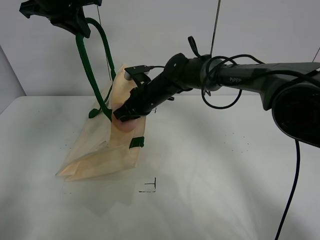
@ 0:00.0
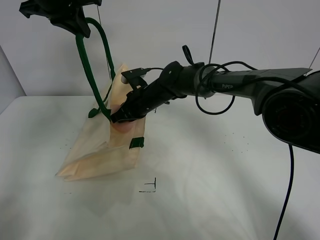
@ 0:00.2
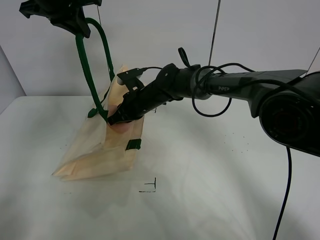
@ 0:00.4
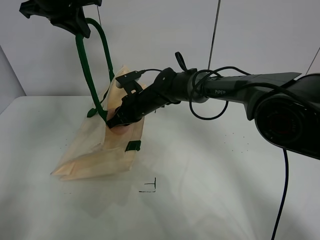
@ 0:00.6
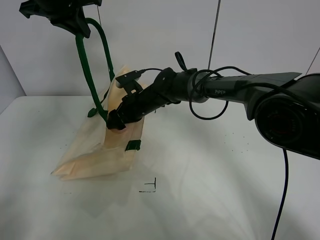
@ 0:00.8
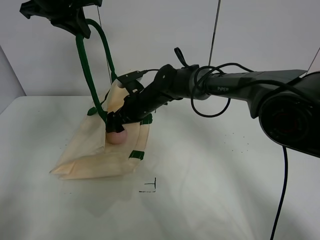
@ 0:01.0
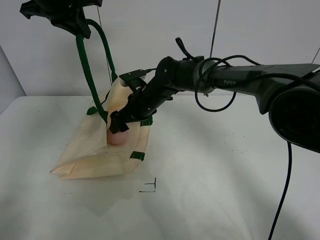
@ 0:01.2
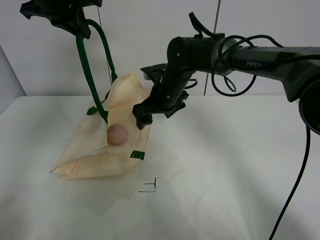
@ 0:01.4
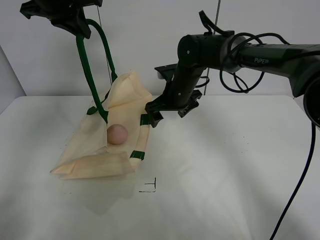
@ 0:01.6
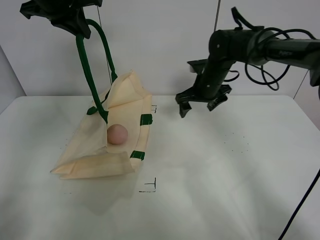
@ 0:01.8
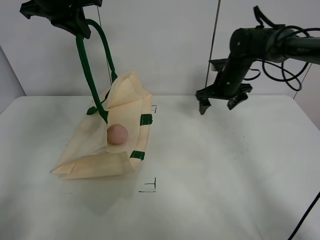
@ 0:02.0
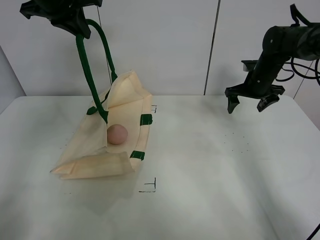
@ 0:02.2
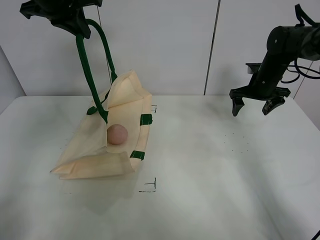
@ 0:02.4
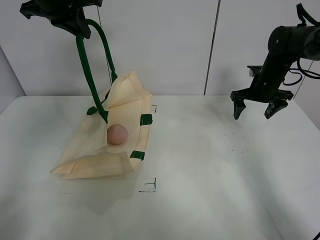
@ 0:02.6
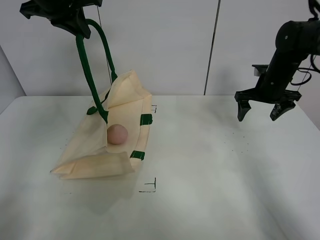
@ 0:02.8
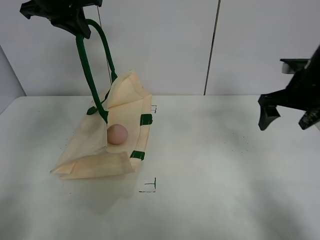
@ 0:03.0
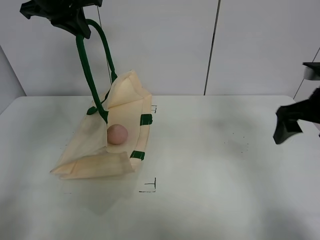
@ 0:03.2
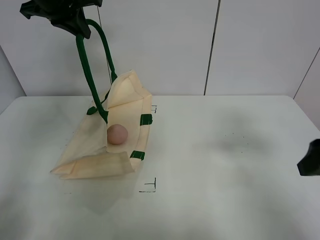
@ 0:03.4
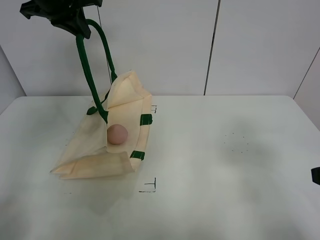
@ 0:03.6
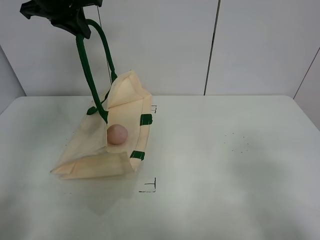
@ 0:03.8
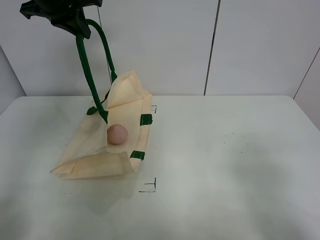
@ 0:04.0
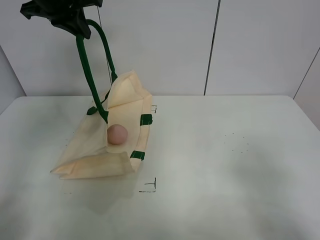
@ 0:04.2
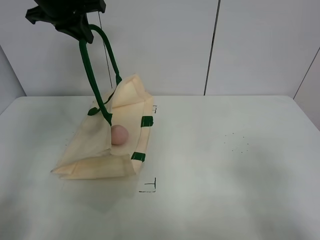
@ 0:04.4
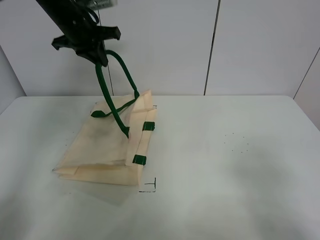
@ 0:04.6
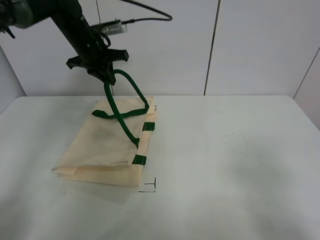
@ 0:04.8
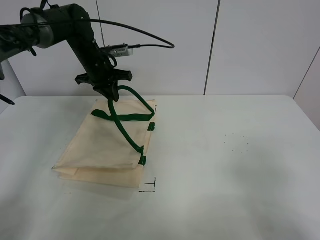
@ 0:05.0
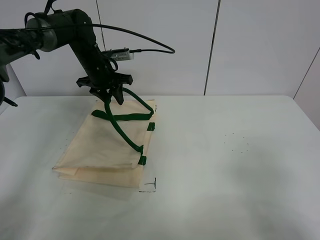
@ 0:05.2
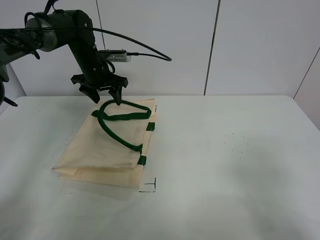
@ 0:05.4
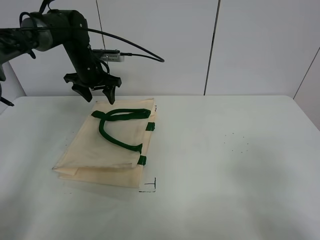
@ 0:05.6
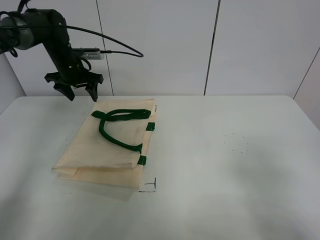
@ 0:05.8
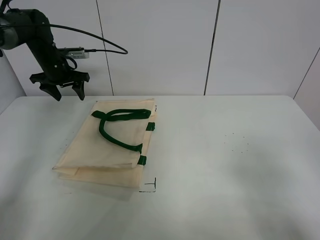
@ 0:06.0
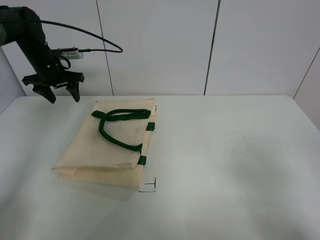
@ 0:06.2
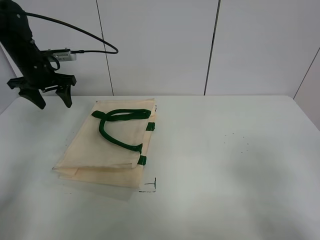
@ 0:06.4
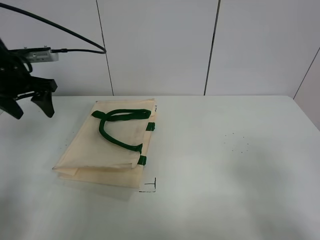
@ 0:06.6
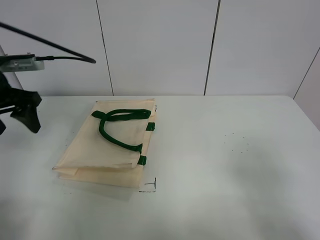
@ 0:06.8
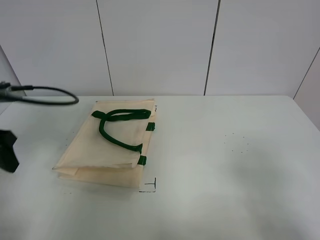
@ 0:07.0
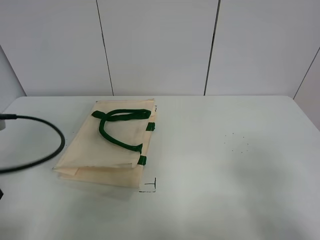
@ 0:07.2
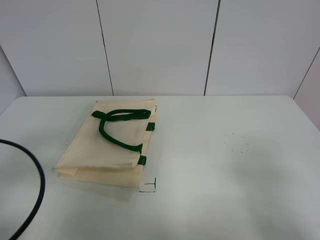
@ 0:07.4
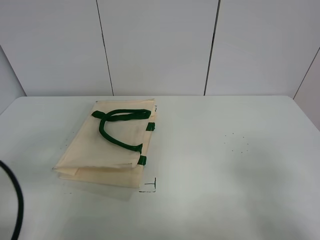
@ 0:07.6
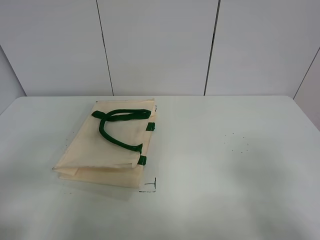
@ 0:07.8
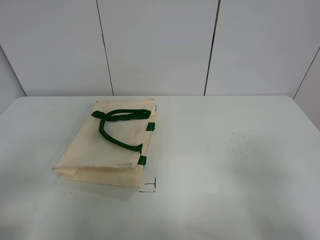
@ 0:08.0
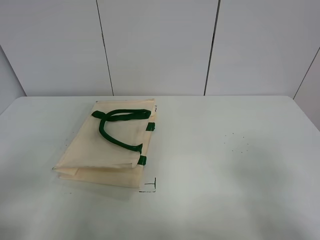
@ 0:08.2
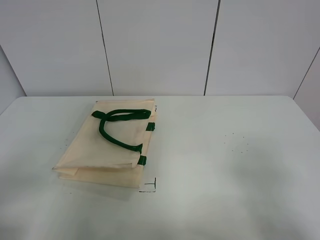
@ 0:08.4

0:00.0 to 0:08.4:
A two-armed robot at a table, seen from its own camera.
Task of the whole recording: open the white linen bag and put the peach in the bag.
Step, 0:01.2 to 0:05.4: Put down the handbag with left gripper.
0:00.0 to 0:01.4: The right gripper opens its fingers.
0:01.4 to 0:02.8: The right gripper shifts about 25 cm to the right.
0:02.8 to 0:04.2: The right gripper moves backward, roughly 40 cm.
0:04.2 to 0:05.6: The left gripper moves downward and forward, approximately 20 cm, and opens.
0:05.6 to 0:07.0: The left gripper is displaced backward and to the left by some 30 cm.
0:07.0 to 0:08.4: The left gripper is displaced backward by some 20 cm.
